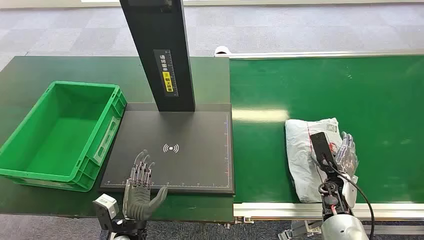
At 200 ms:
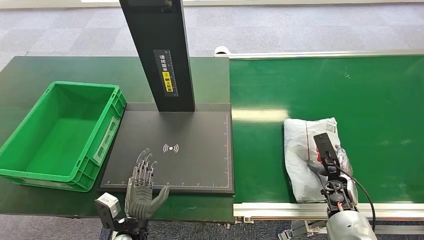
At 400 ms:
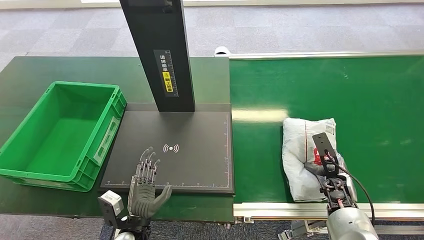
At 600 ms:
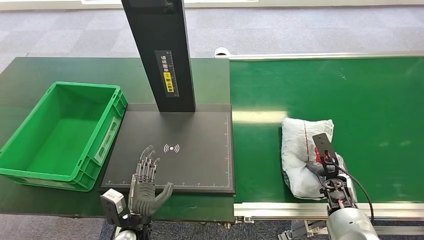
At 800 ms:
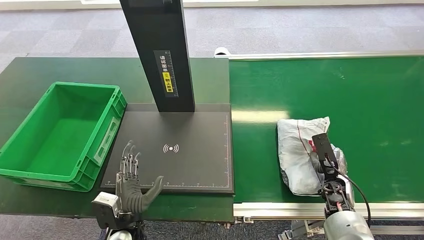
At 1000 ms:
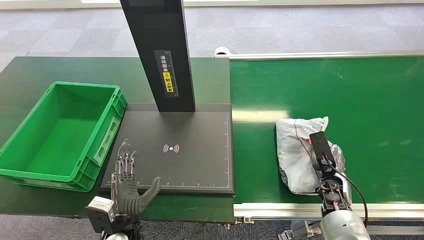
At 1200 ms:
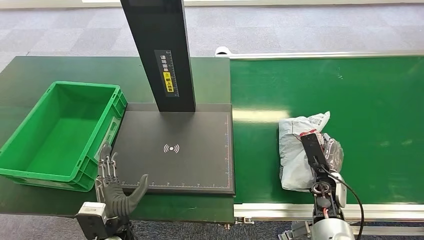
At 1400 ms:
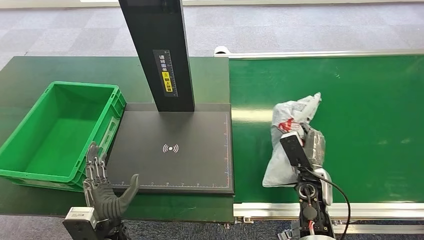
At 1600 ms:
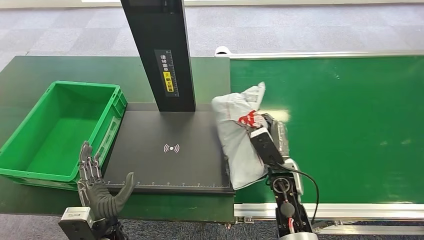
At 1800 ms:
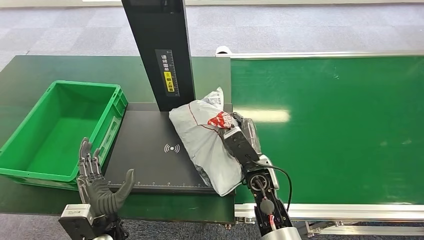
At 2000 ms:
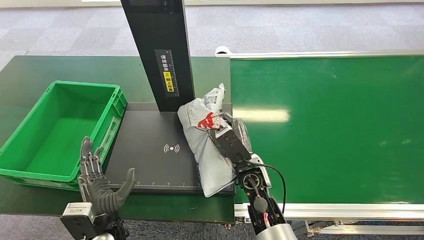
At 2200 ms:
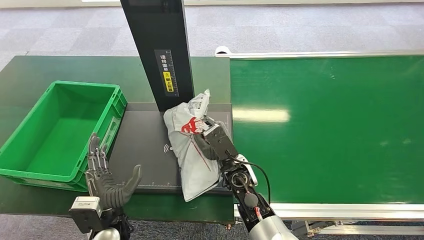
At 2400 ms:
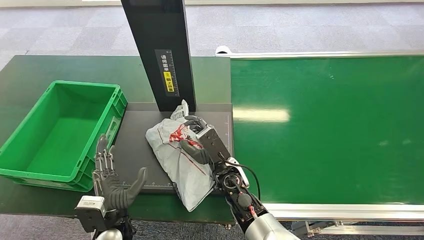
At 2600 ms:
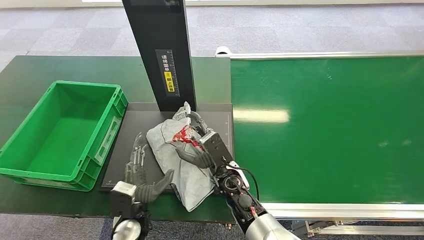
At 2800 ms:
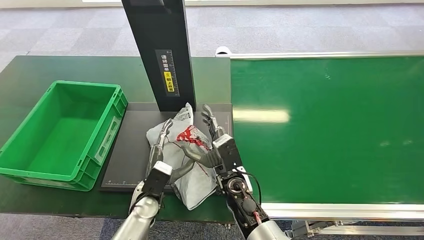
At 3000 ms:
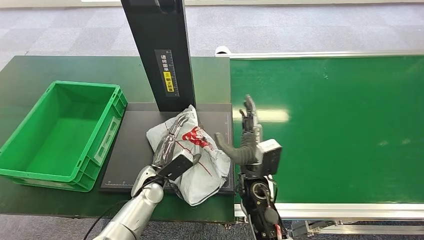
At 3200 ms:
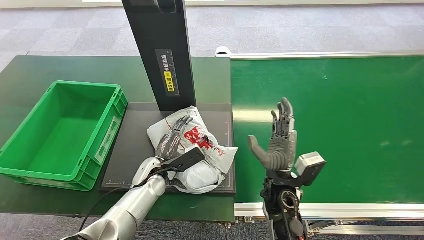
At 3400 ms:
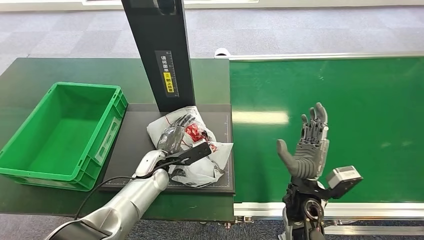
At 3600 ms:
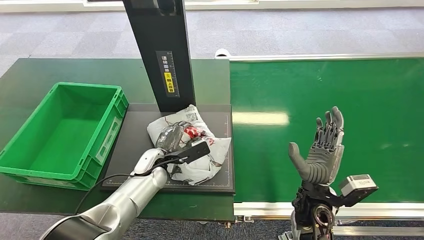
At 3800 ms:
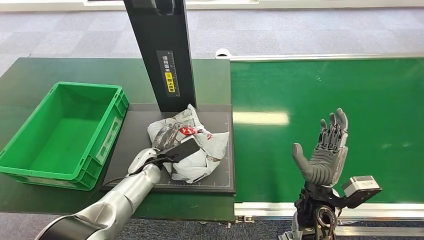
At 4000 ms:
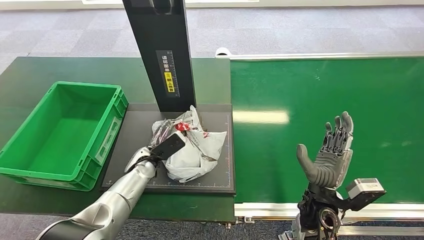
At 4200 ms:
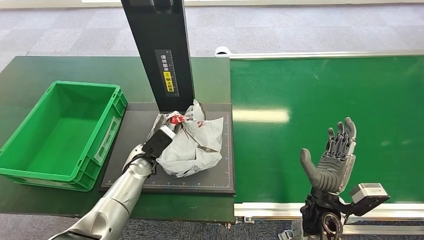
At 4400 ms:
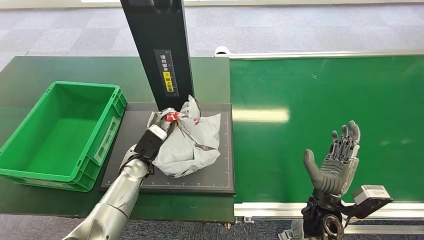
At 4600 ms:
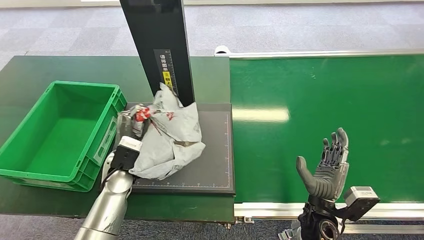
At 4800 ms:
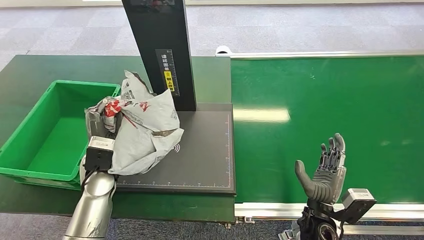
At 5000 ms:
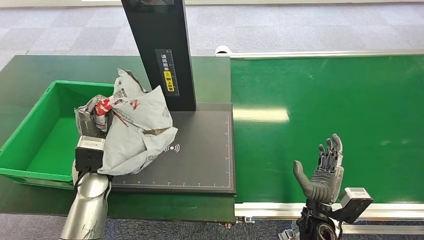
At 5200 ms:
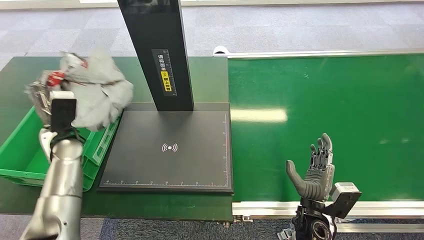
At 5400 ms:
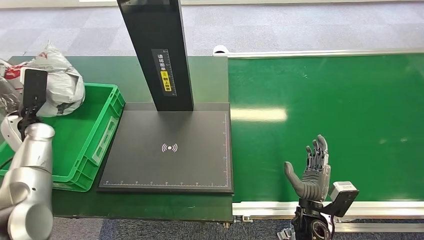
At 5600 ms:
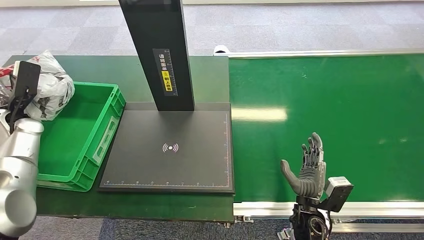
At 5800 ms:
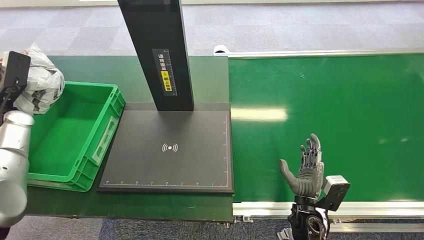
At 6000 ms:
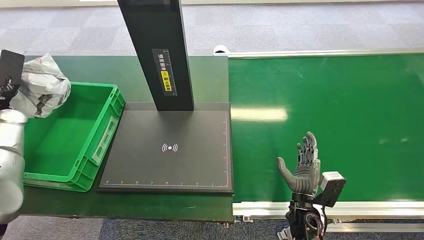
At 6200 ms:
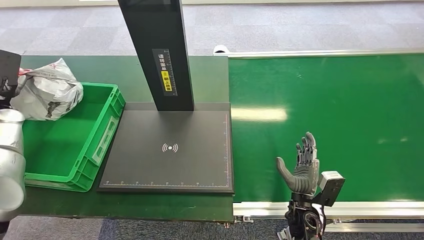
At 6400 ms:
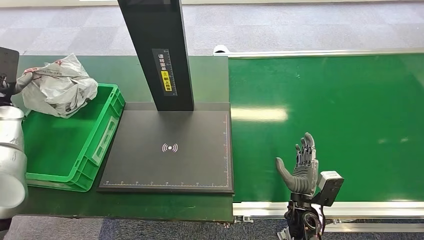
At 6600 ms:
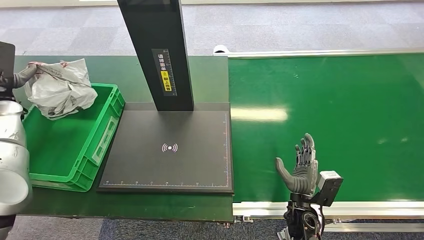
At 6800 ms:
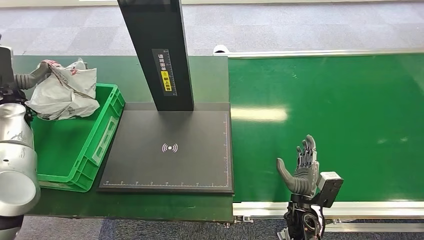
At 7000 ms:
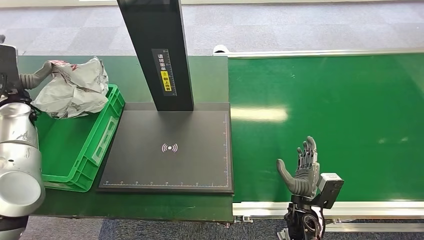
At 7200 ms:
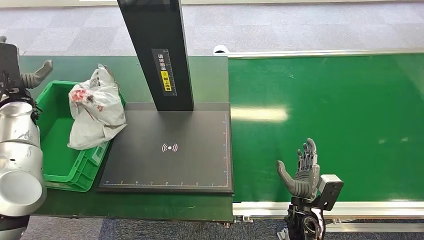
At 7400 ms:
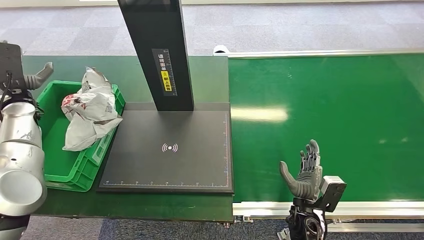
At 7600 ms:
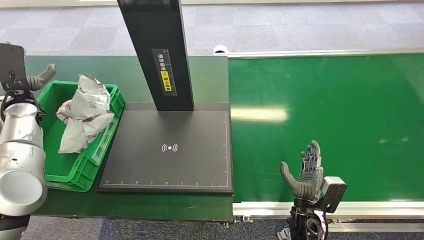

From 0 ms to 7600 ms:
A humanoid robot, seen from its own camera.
Step, from 0 ms to 1600 ms: Pick up the package from the conveyor belt.
Step, from 1800 ms to 3000 ms: Place the package onto the inbound machine.
Step, from 3400 ms to 4600 ms: Pick up the package from the inbound machine.
Step, from 4800 ms to 7600 ms: Place the package into the parcel locker.
From 1600 ms to 3000 ms: The right hand heads to the left, covering approximately 10 cm. Meanwhile the left hand travels forward and to the right by some 15 cm.
From 6000 ms to 7600 ms: The left hand ends up roughly 5 cm from where it was.

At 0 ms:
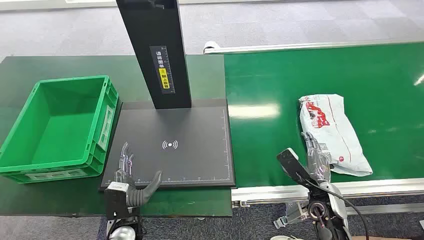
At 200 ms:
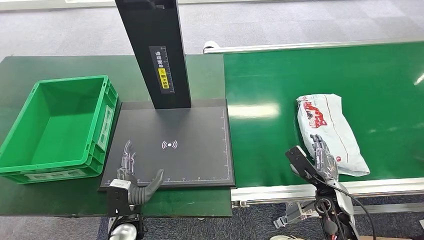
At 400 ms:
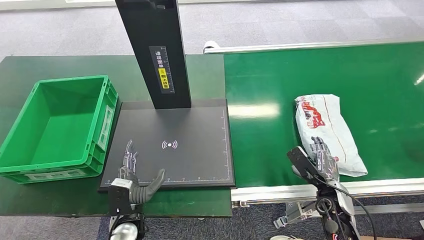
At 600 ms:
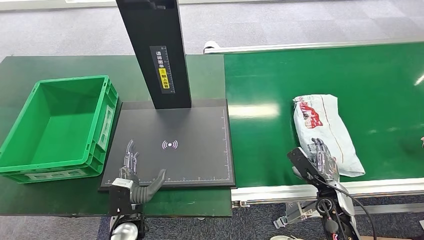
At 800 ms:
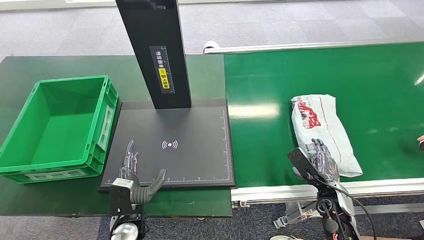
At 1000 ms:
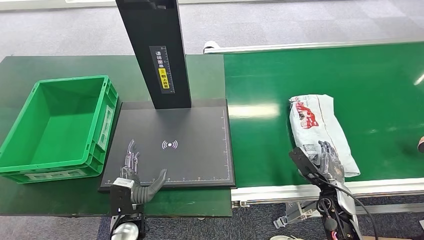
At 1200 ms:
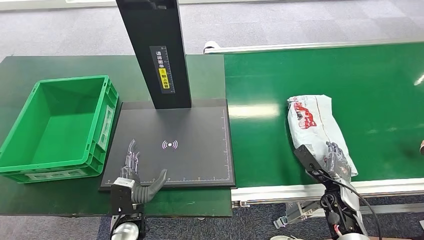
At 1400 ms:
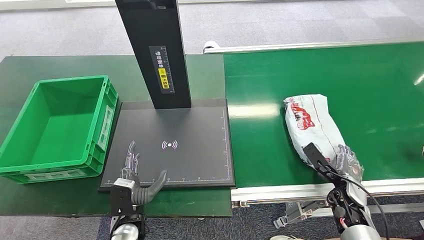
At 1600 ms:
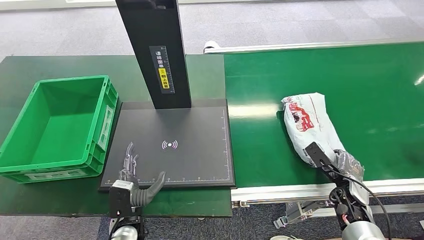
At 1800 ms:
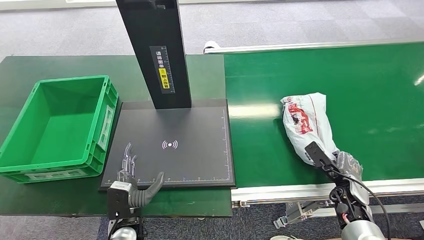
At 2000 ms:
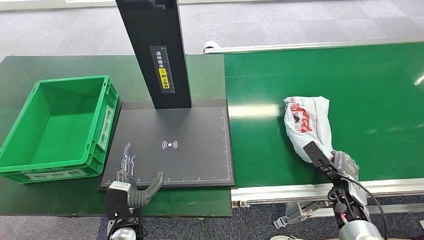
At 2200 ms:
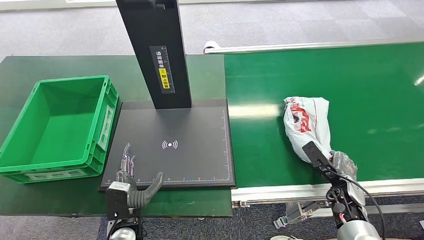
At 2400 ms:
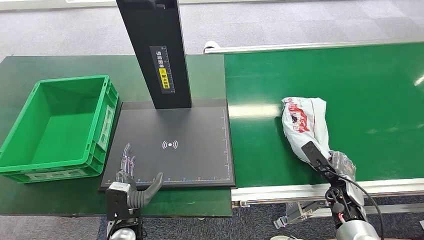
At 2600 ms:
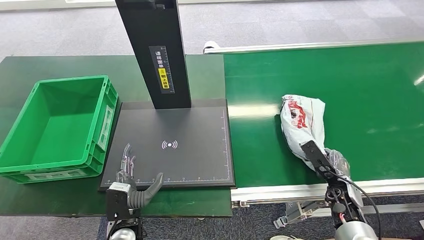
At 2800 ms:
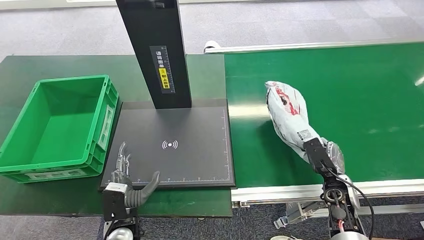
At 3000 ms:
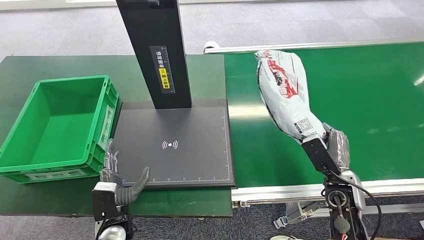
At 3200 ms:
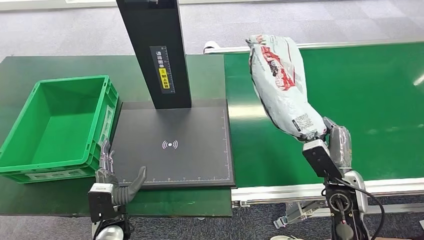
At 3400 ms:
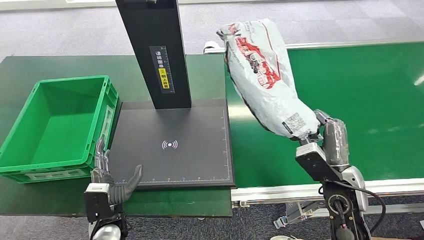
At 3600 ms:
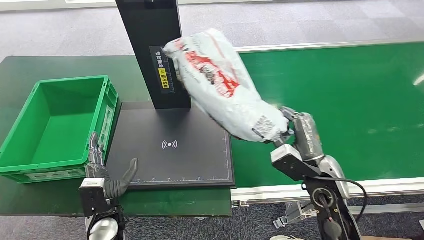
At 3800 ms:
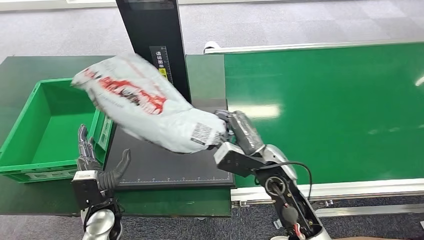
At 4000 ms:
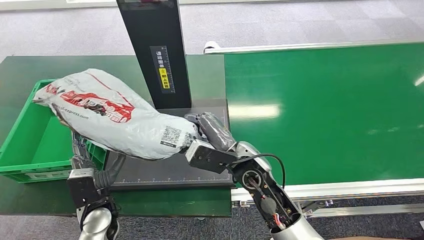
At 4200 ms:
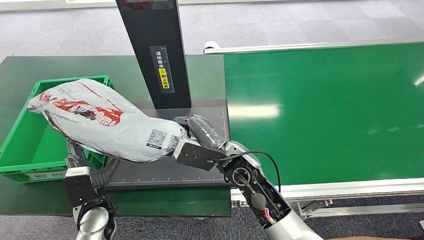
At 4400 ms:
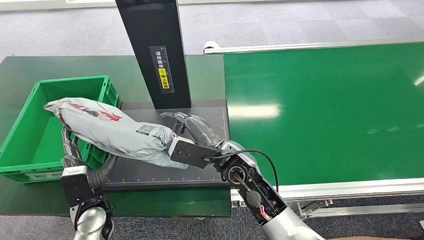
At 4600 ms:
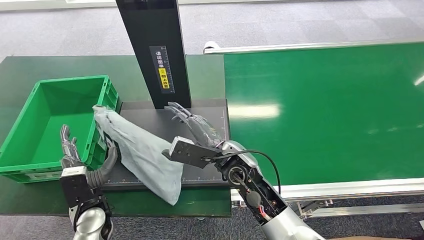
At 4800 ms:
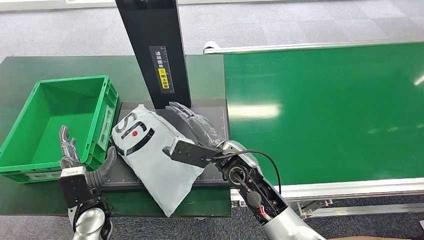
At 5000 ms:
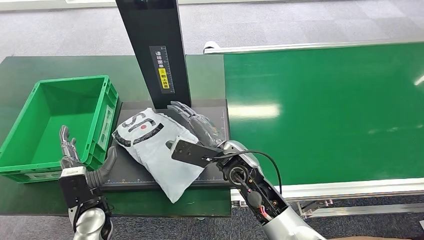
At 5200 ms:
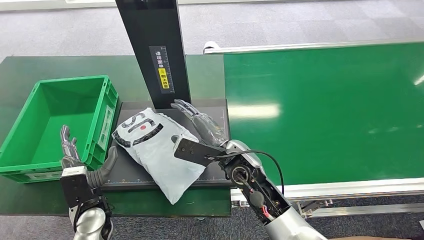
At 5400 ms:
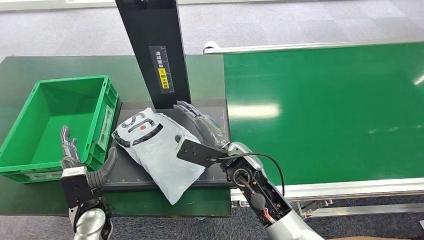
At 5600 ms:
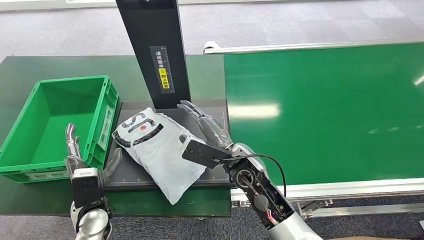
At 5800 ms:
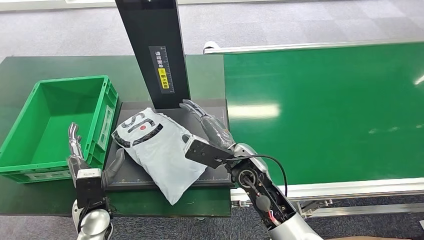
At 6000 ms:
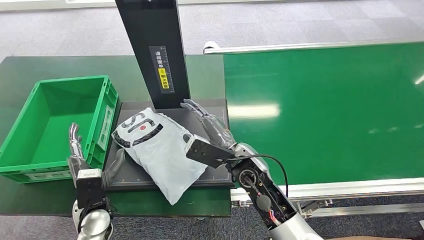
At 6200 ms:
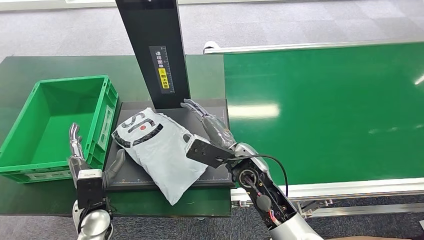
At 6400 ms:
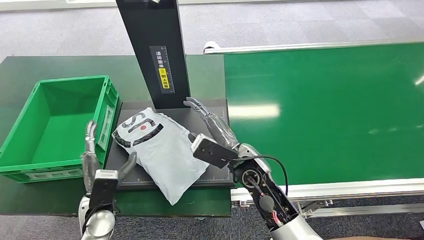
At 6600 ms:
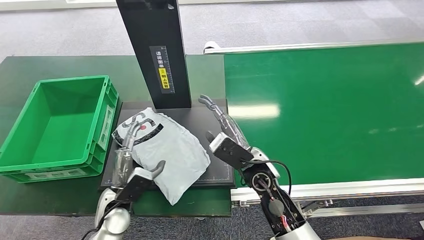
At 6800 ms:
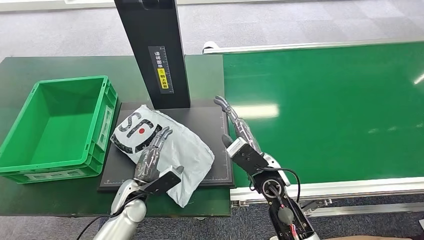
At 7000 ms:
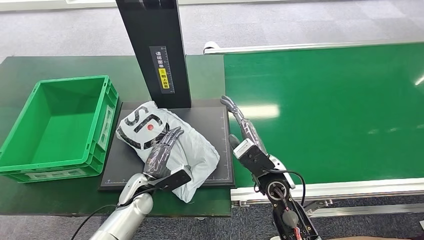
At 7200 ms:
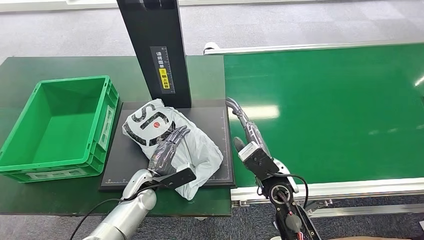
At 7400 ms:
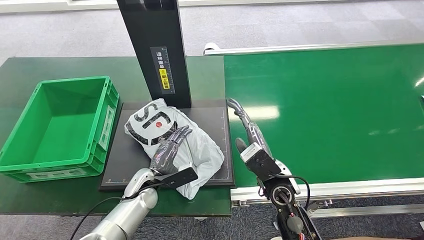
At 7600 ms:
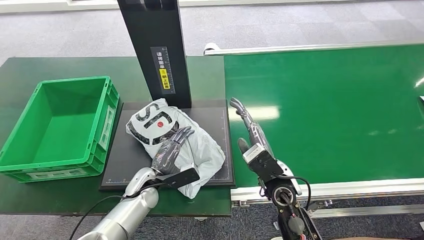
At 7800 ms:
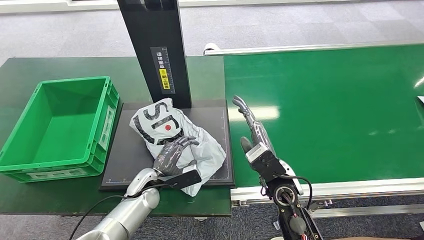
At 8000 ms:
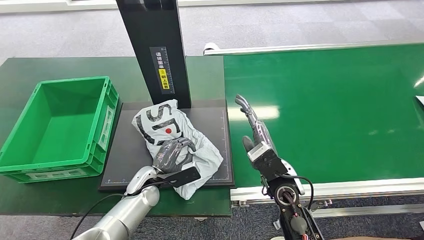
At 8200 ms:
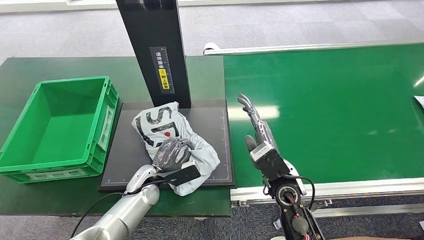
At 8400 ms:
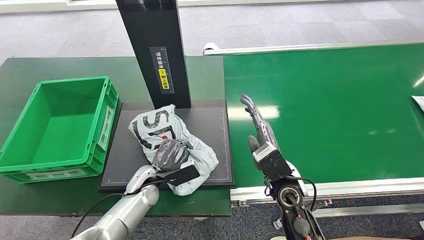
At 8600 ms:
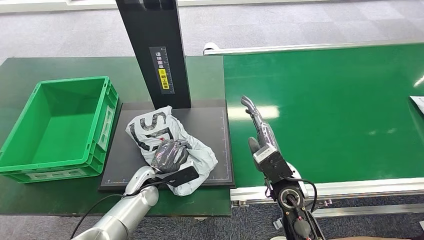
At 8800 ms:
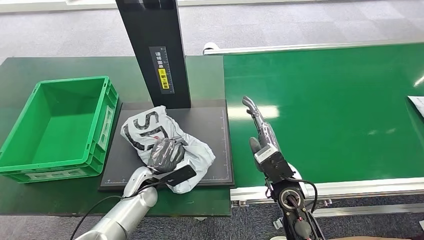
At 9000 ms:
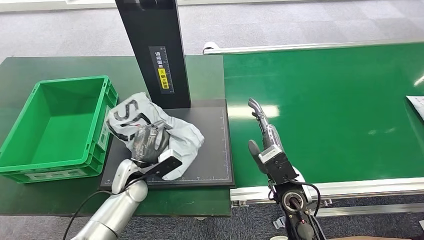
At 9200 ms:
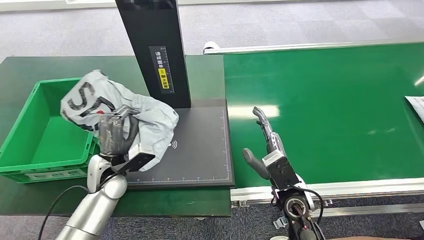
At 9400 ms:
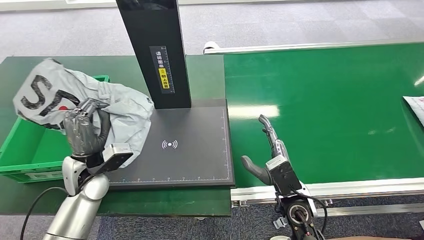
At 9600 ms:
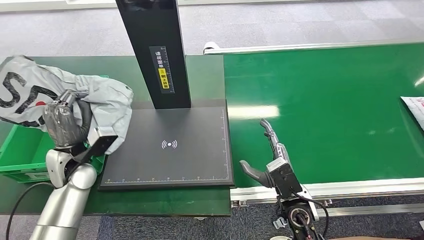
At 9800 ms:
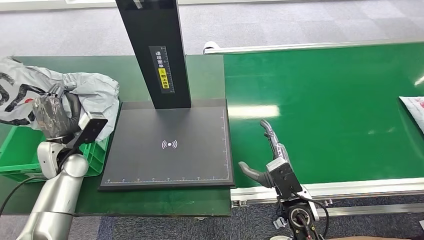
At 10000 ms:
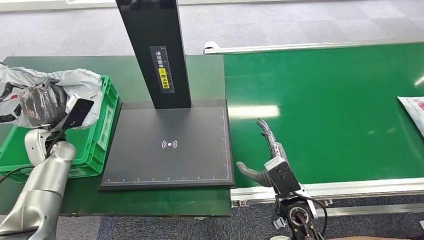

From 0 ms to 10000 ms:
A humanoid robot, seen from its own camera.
Step, from 0 ms to 3400 ms: Pick up the package from the conveyor belt.
Step, from 3800 ms to 5600 ms: Place the package onto the inbound machine.
Step, from 5800 ms to 9600 ms: Pick up the package from the inbound machine.
From 4200 ms to 5800 ms: The hands move only a little.
From 5800 ms to 7200 ms: The left hand heads to the right and forward, covering about 10 cm. Meanwhile the right hand travels to the right by about 5 cm.
From 7200 ms to 8600 ms: The hands move only a little.
